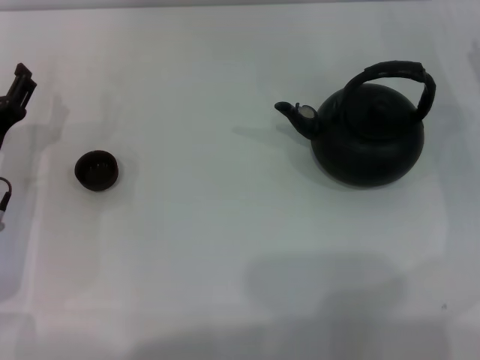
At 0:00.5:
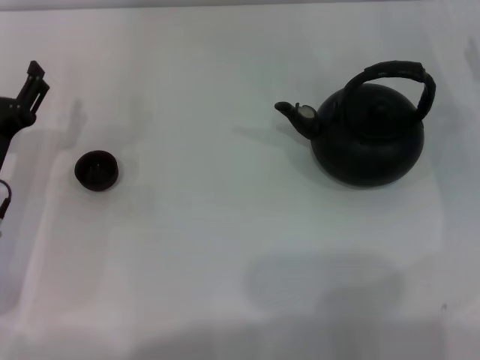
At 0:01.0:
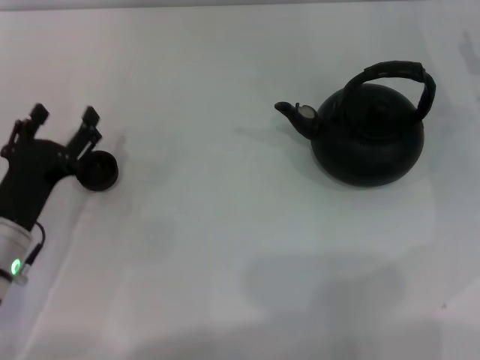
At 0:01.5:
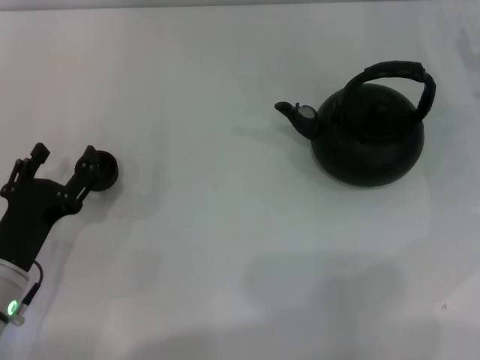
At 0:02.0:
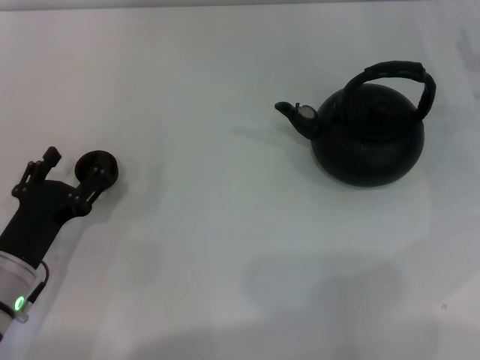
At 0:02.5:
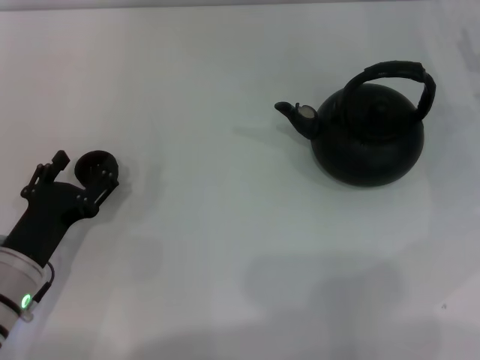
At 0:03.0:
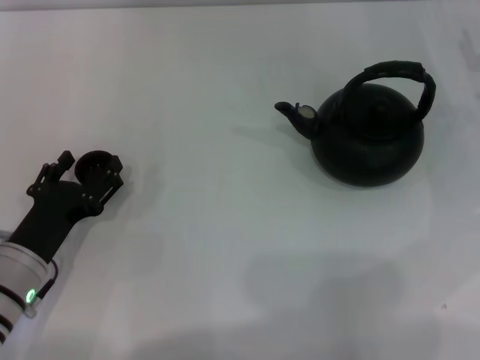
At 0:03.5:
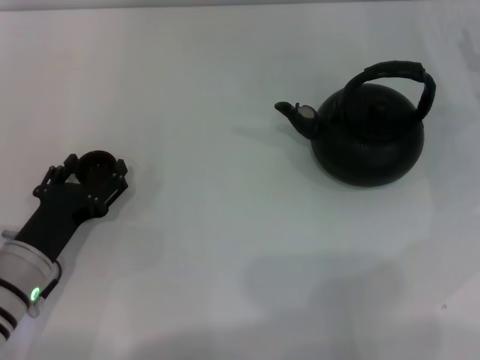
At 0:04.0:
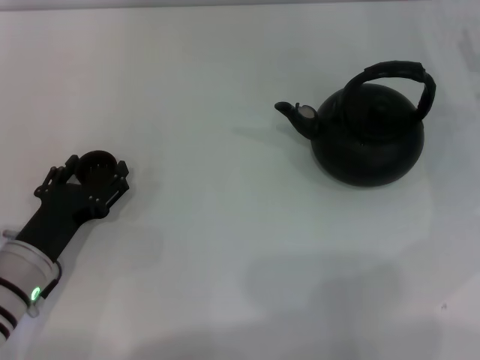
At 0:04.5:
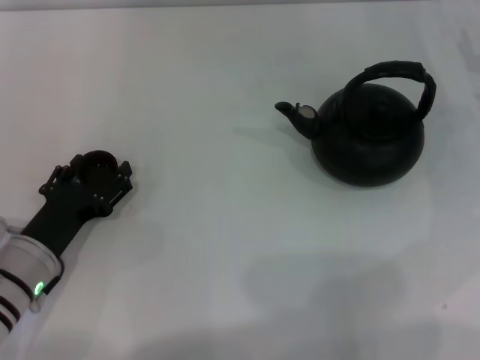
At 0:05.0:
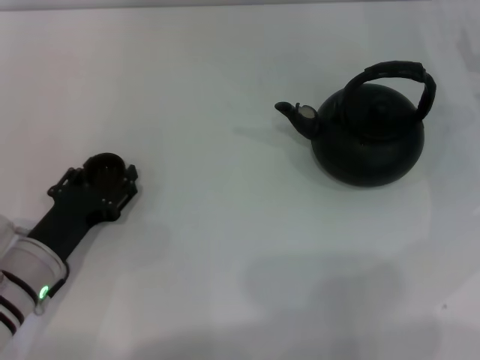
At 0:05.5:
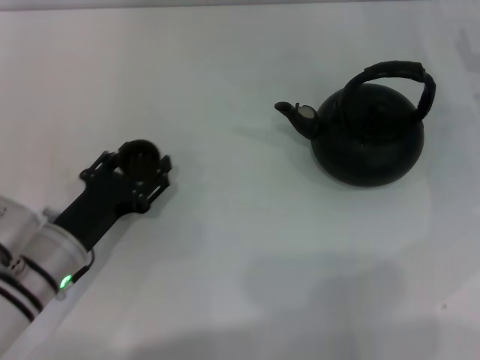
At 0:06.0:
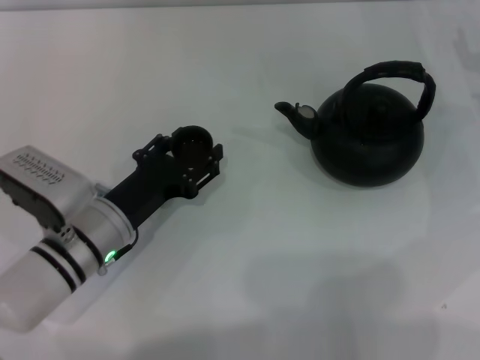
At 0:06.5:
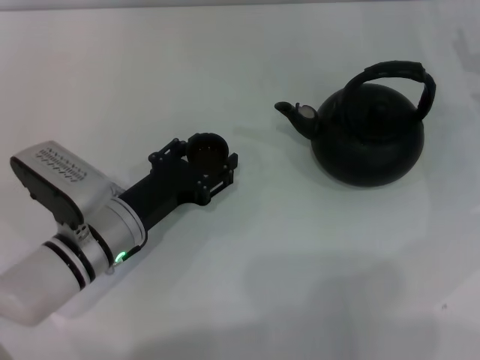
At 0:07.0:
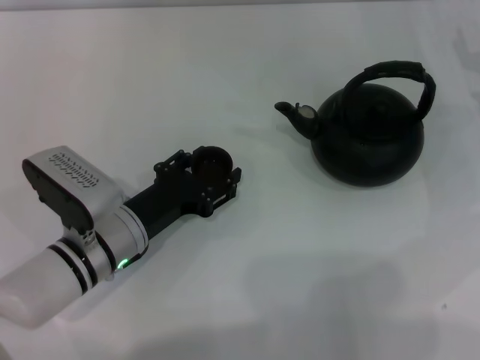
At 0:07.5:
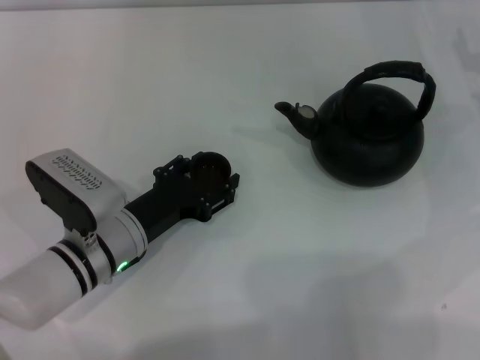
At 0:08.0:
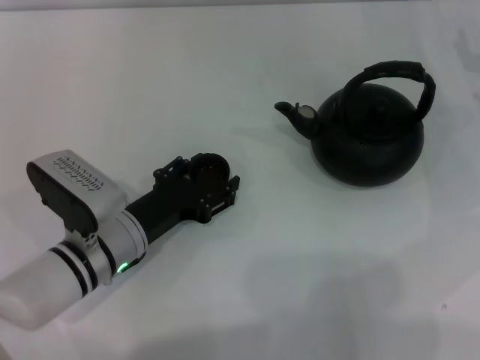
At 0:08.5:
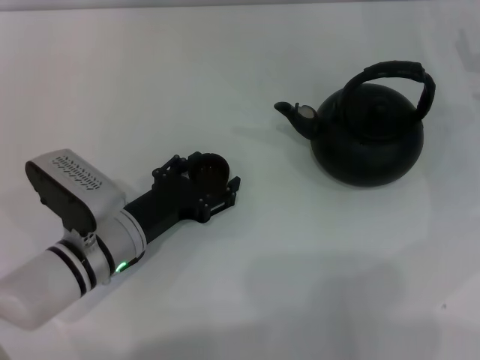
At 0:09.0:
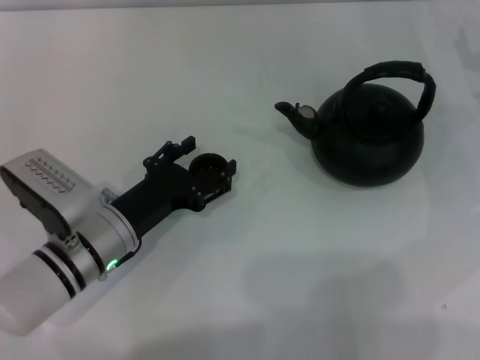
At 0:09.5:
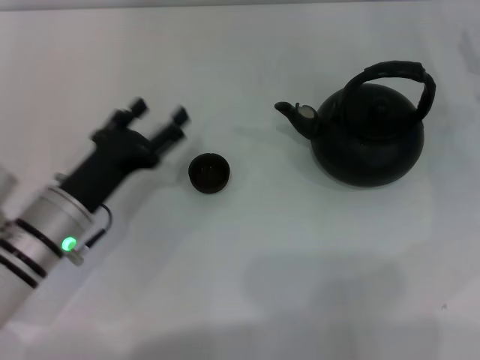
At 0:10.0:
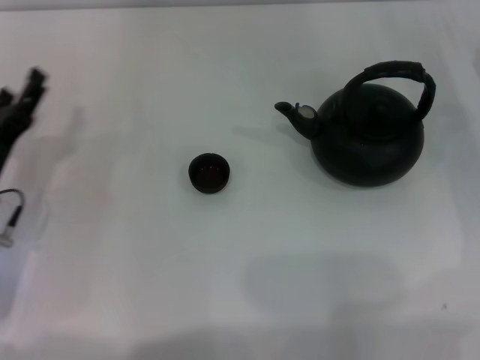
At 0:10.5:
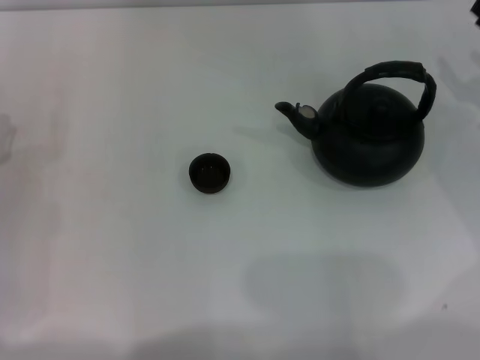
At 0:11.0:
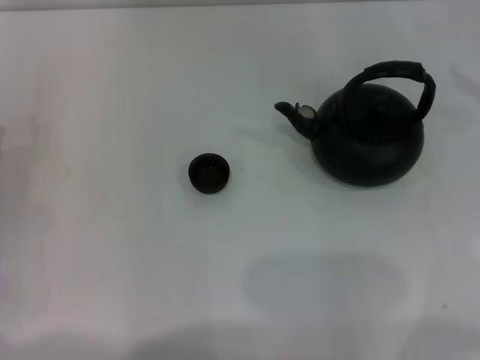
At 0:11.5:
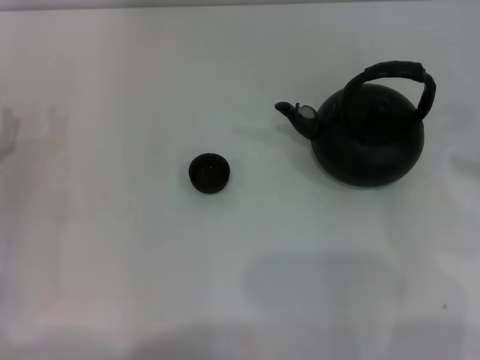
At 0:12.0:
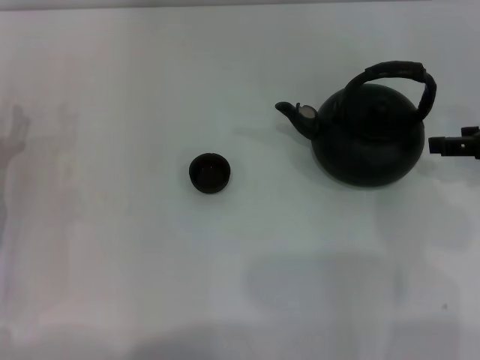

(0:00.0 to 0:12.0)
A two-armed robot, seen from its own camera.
Task of the whole recording: Grasp the handle of the teapot with one hand and pour tea into the teacup.
Step, 0:00.0 - 0:05.0: Pick up the teacup with the left gripper.
Step, 0:05.5 - 0:09.5: Place the teacup in the center of view with the left gripper.
0:00.0 - 0:02.0: The left gripper travels backward by about 10 cm.
0:02.0 - 0:04.0: The grippers move only a little.
0:04.0 - 0:06.0: The left gripper goes approximately 5 cm to the right, and closes.
0:06.0 - 0:08.0: The grippers move only a little.
0:08.0 - 0:10.0: The left gripper travels to the left by about 10 cm, and opens.
0:10.0 - 0:12.0: The right gripper shifts approximately 10 cm upward.

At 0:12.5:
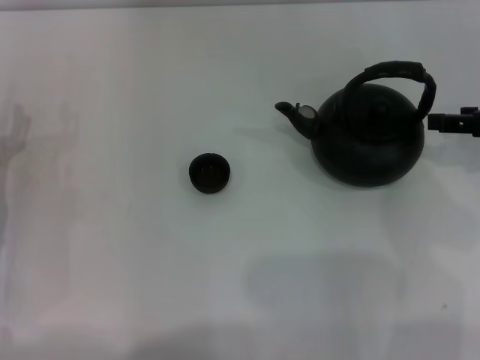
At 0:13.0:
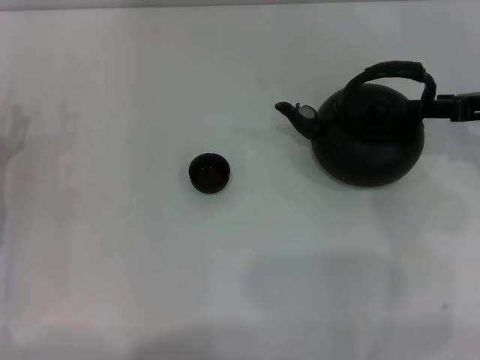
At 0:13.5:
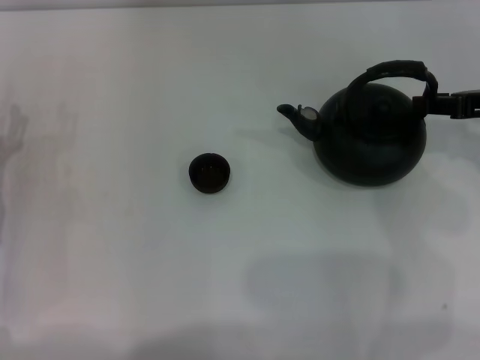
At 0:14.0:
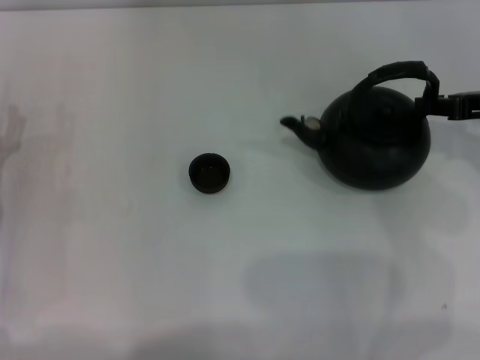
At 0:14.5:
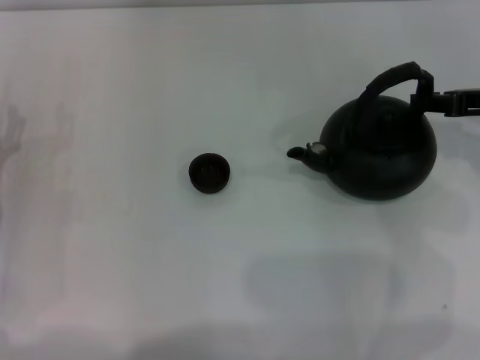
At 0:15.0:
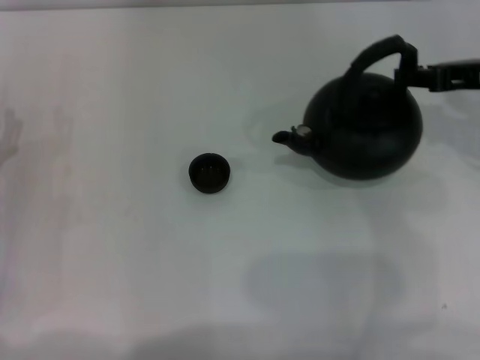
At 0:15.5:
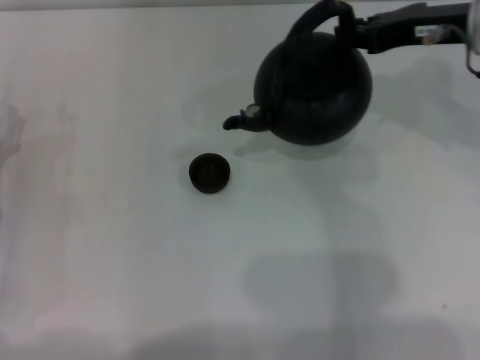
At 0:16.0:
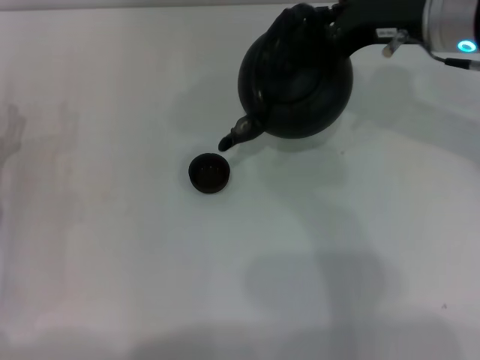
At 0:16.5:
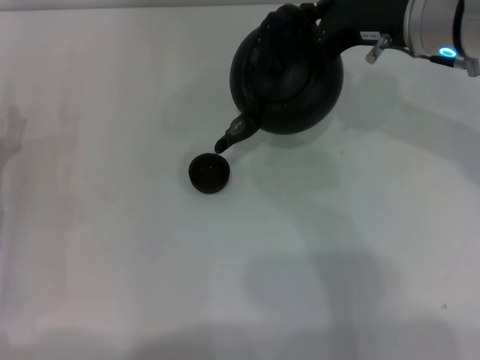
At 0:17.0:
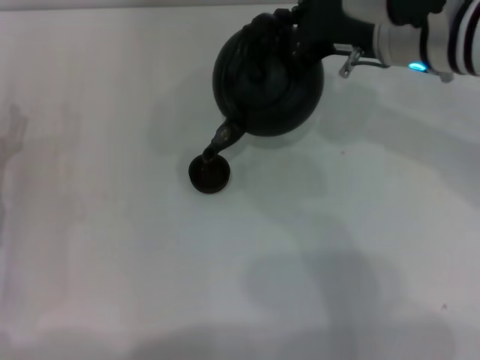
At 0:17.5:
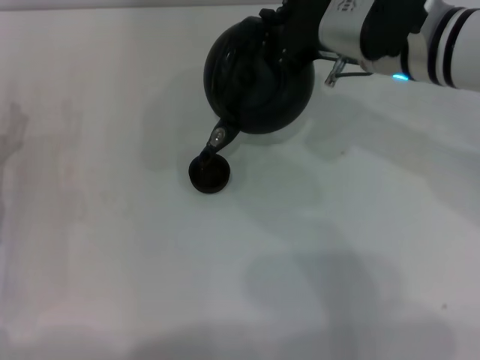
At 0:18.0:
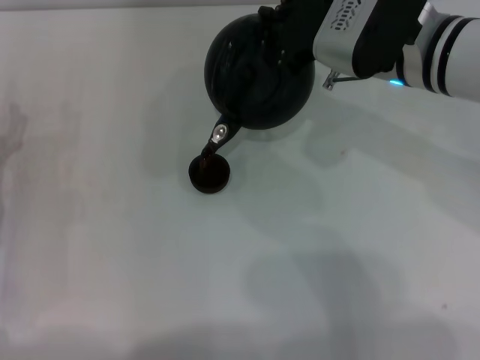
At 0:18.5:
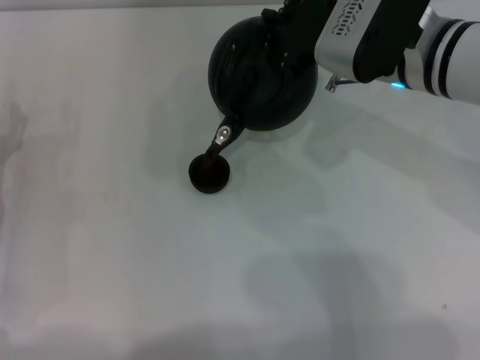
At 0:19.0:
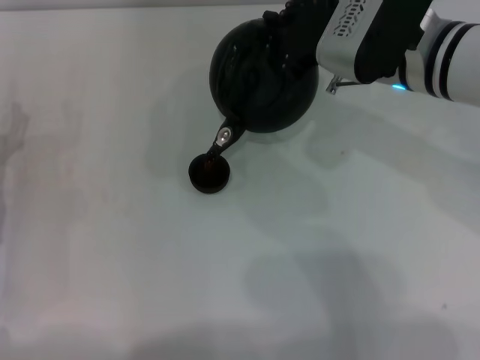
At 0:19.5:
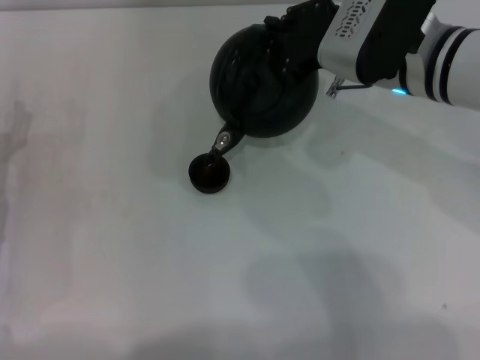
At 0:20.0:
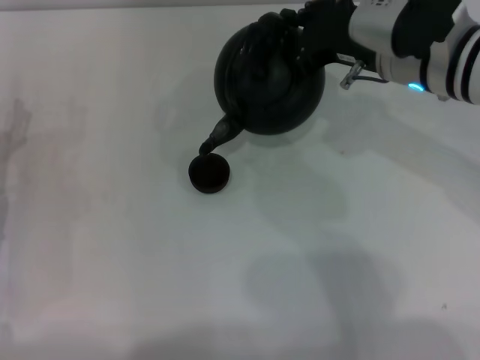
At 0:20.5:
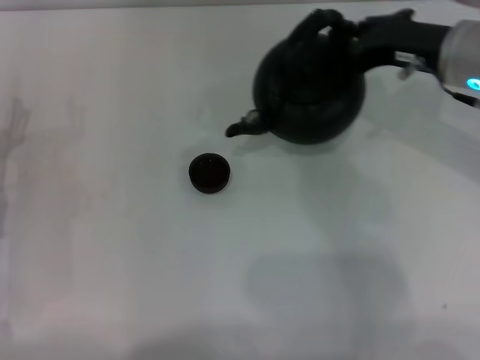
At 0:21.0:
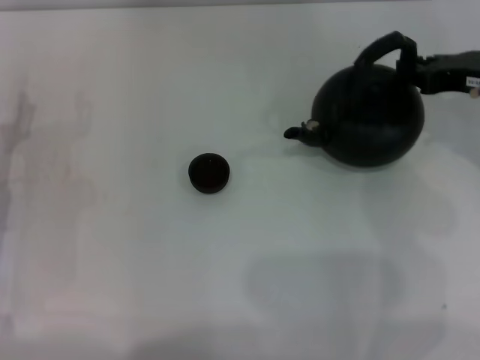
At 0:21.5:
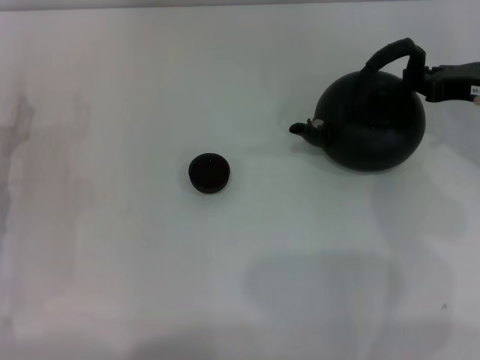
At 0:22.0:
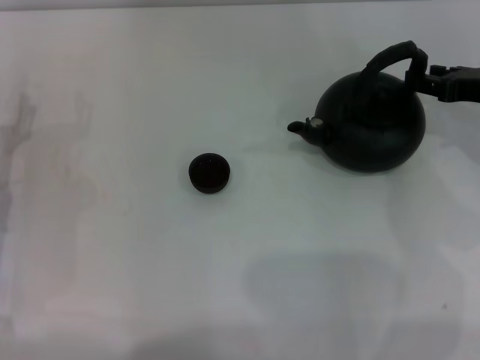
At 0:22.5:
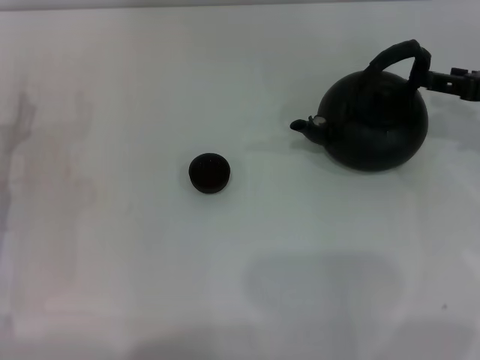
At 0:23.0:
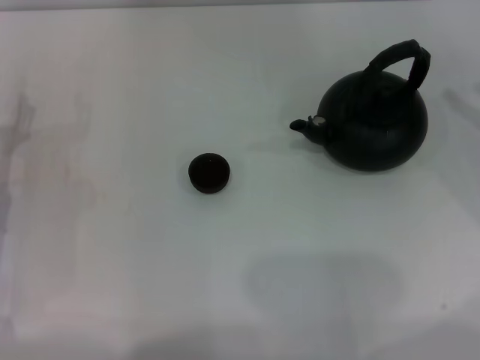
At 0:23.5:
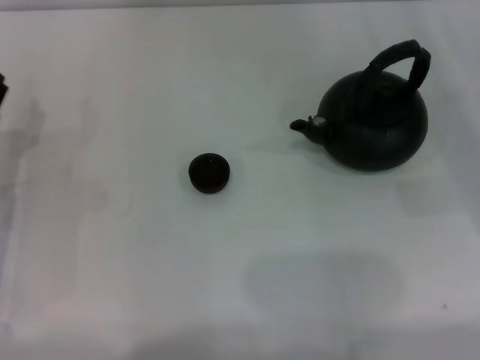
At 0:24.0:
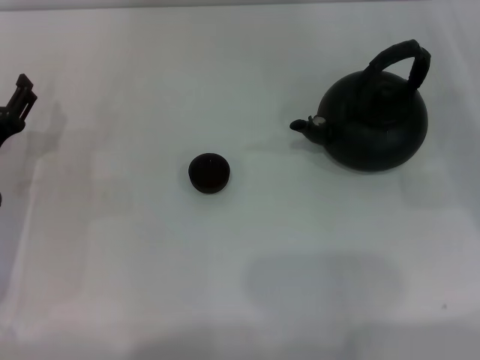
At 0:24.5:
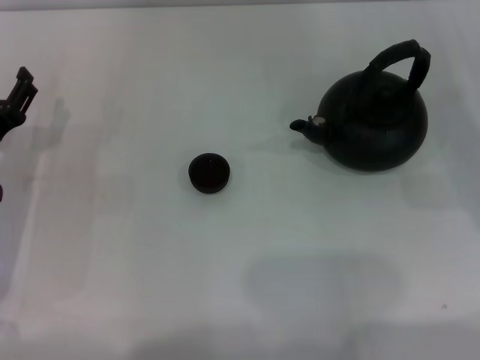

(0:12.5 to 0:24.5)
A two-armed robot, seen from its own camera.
Task of the whole recording: Grasp the handle of the teapot with one hand and pour tea into the teacup.
Step, 0:12.5 - 0:15.0: Pick up the teapot with the right gripper.
Step, 0:15.5 - 0:20.0: Pour tea into the teacup with the right gripper.
Step, 0:21.0 - 0:22.5: Put down the teapot with the right gripper.
0:12.5 - 0:14.5: The right gripper closes.
0:14.5 - 0:16.5: The right gripper heads to the left, covering approximately 15 cm.
0:16.5 - 0:18.5: There are only small adjustments of the grippers.
0:18.5 - 0:20.5: The right gripper heads to the right, covering some 10 cm.
0:20.5 - 0:22.5: The right gripper heads to the right, covering roughly 10 cm, and opens.
0:22.5 - 0:24.5: The right gripper travels downward by approximately 5 cm.

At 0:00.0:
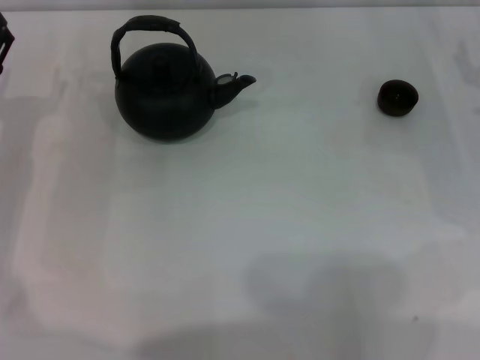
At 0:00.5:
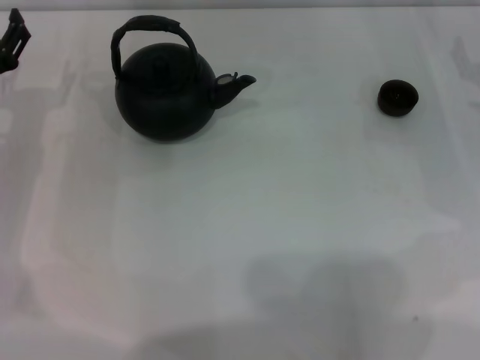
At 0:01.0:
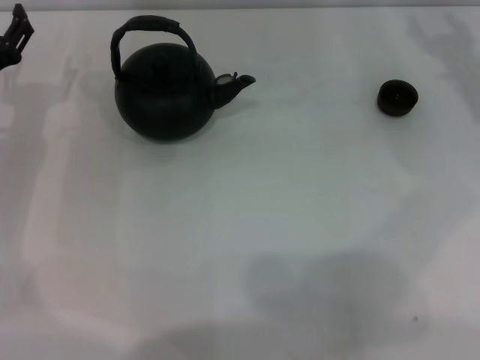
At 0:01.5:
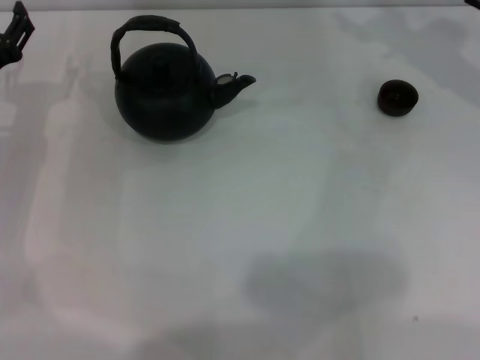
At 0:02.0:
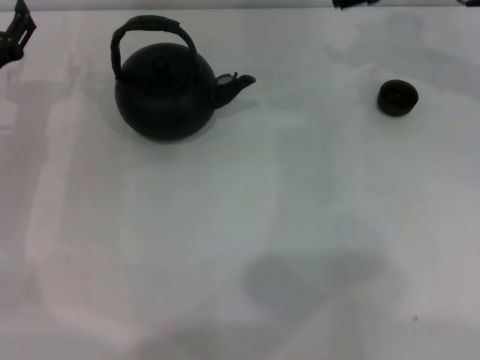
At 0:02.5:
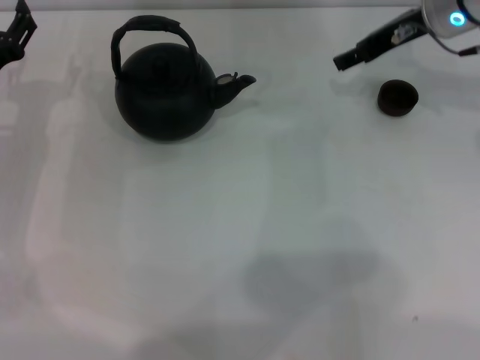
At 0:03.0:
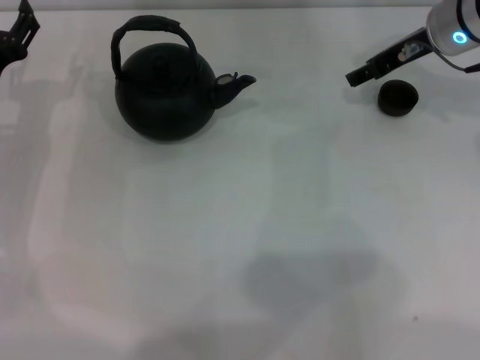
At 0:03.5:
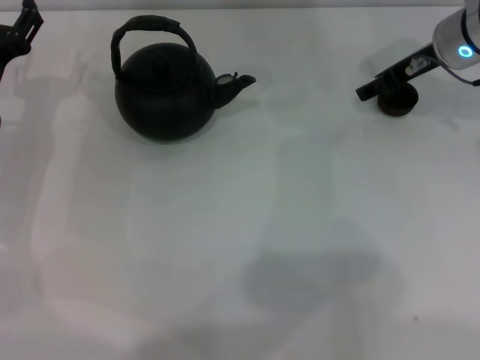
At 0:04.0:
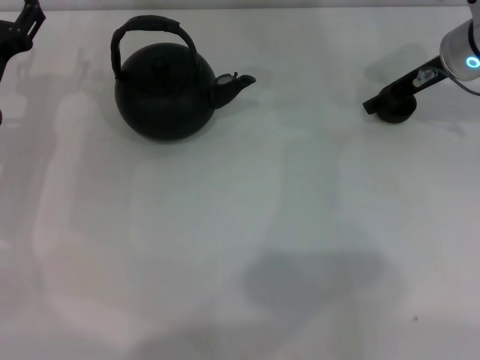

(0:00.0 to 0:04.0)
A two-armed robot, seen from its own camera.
Task of the whole recording: Grasp the handle of the teapot with one hand and pour tea into the teacup.
0:02.0 - 0:04.0: The right gripper is displaced downward by roughly 5 cm.
